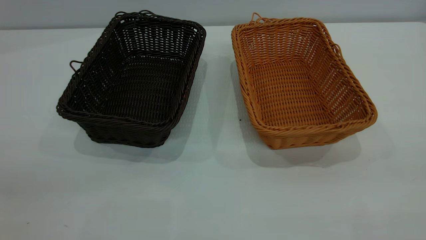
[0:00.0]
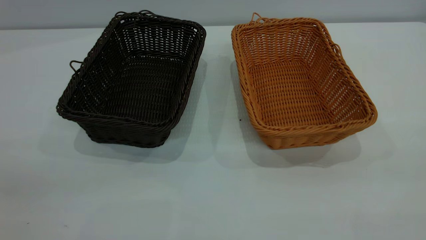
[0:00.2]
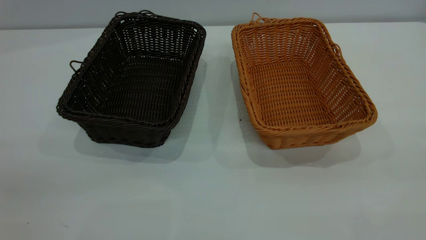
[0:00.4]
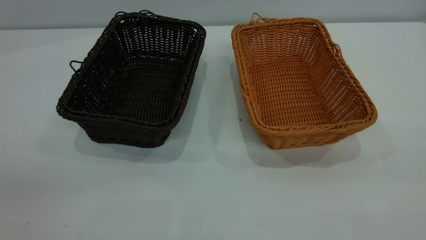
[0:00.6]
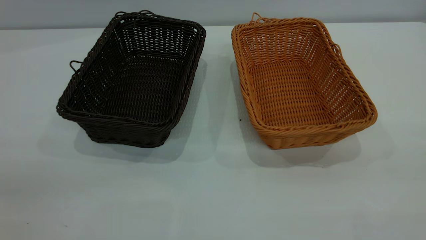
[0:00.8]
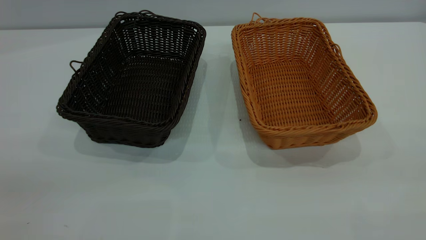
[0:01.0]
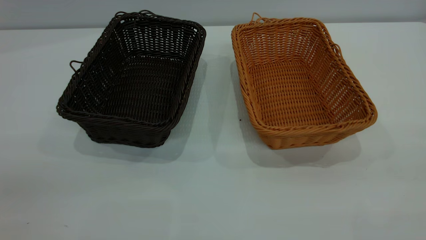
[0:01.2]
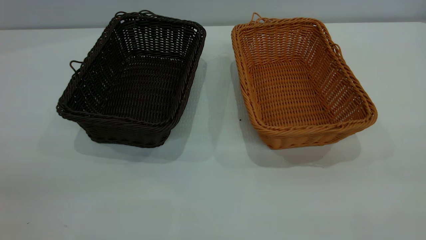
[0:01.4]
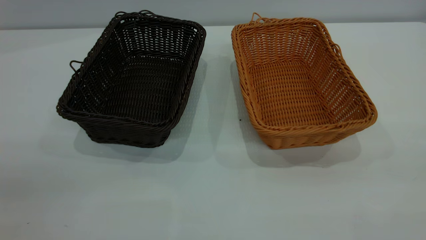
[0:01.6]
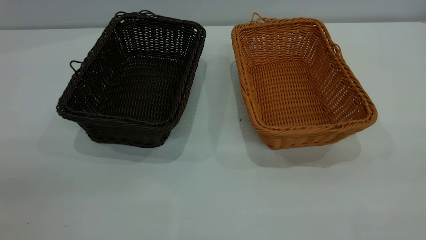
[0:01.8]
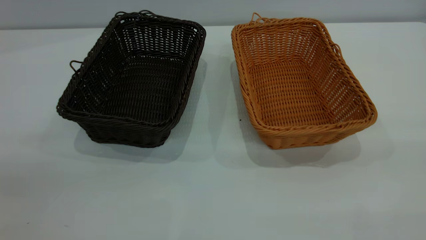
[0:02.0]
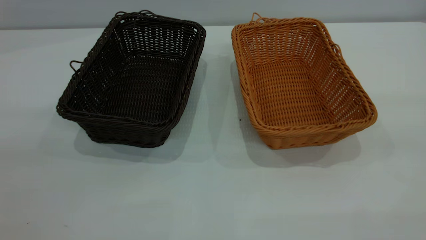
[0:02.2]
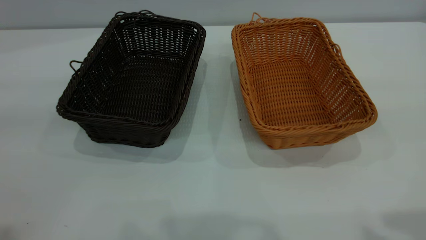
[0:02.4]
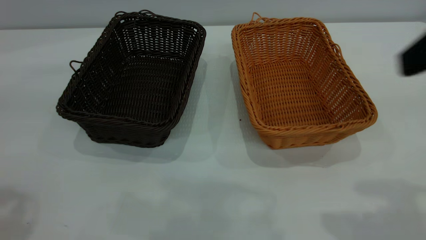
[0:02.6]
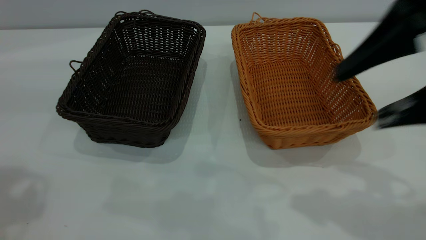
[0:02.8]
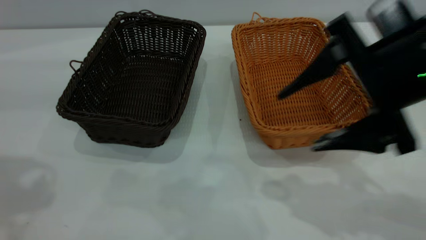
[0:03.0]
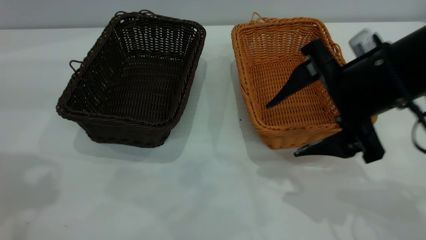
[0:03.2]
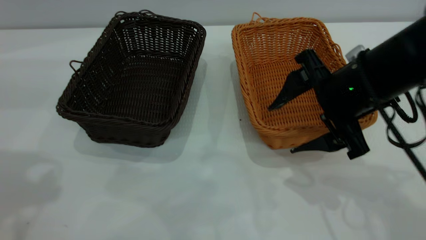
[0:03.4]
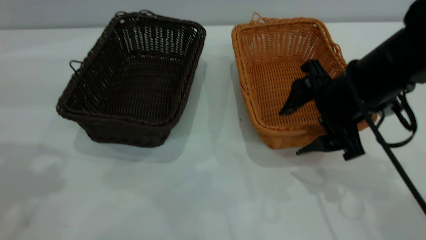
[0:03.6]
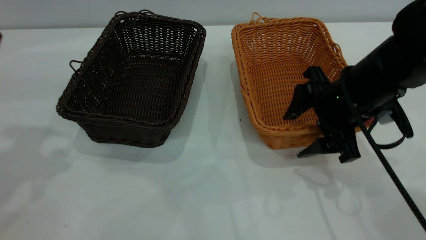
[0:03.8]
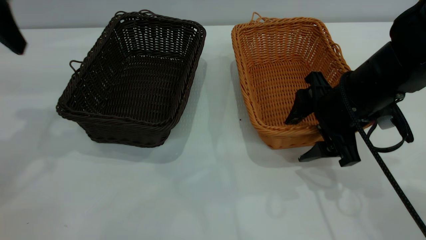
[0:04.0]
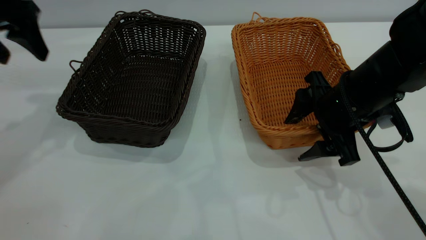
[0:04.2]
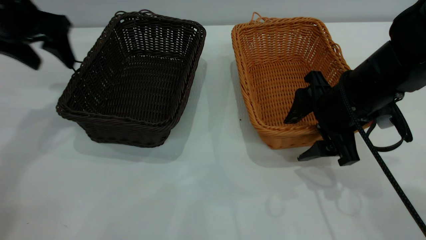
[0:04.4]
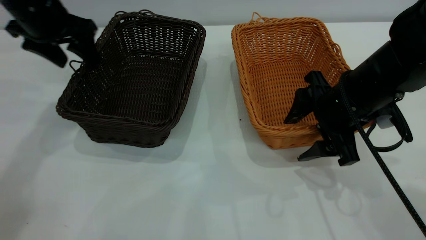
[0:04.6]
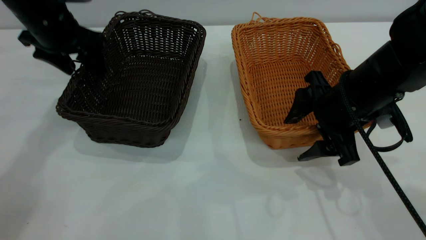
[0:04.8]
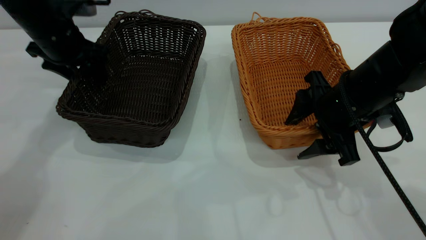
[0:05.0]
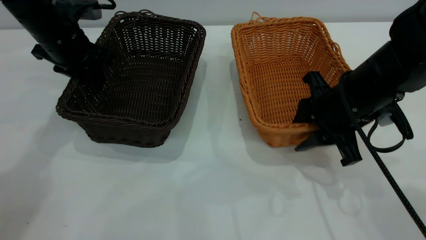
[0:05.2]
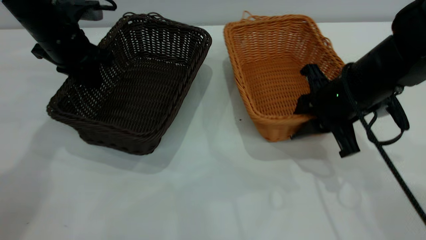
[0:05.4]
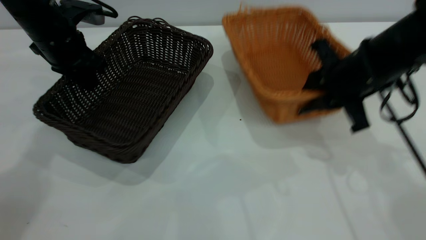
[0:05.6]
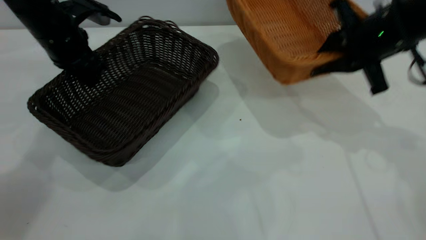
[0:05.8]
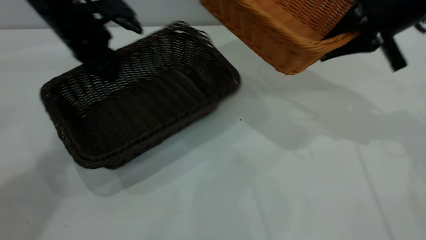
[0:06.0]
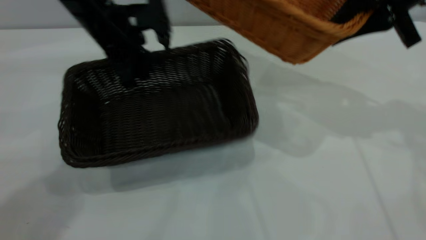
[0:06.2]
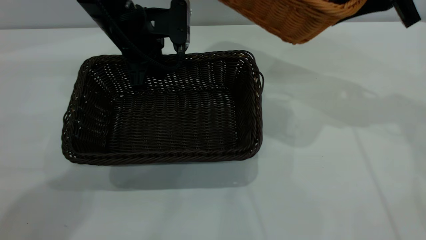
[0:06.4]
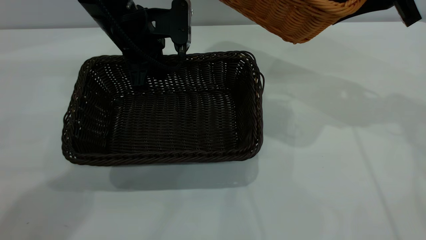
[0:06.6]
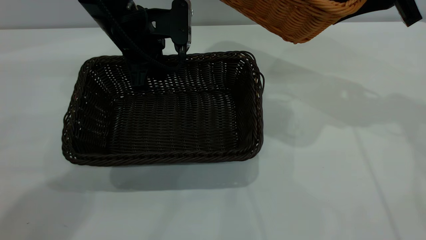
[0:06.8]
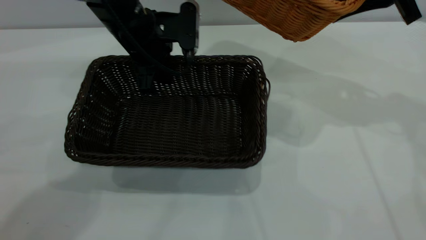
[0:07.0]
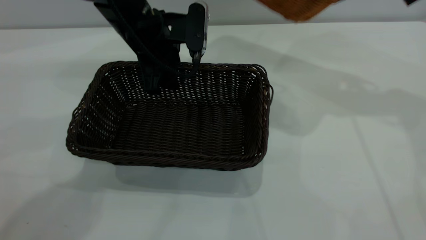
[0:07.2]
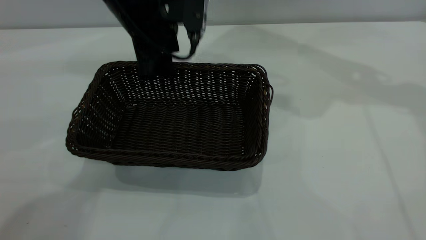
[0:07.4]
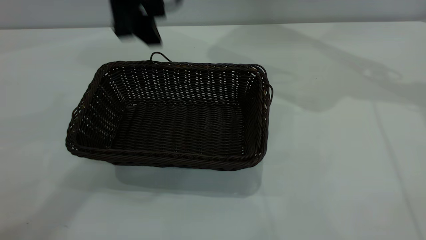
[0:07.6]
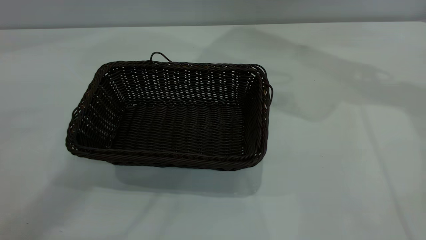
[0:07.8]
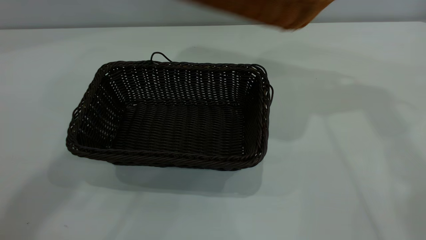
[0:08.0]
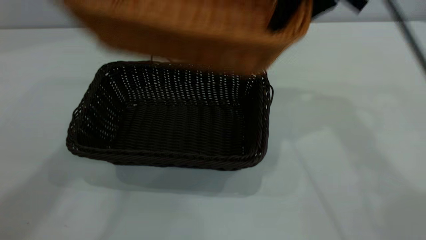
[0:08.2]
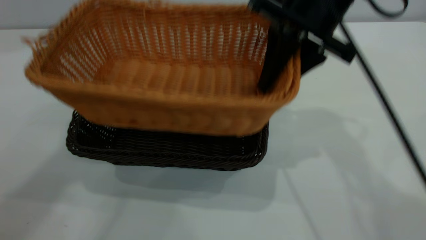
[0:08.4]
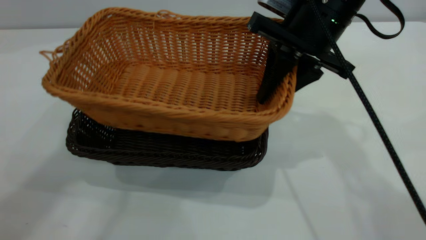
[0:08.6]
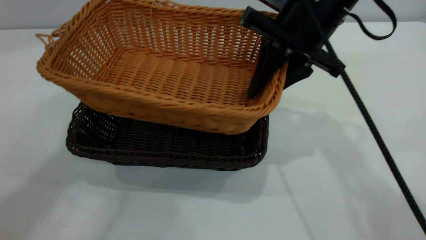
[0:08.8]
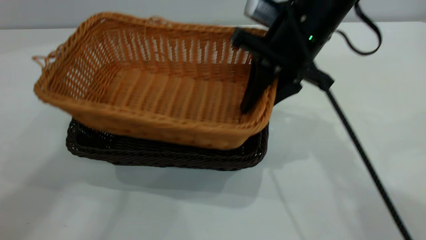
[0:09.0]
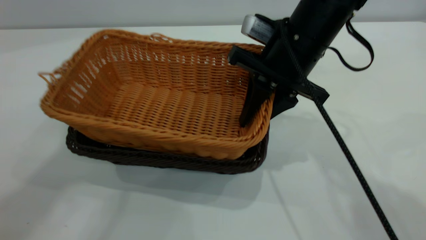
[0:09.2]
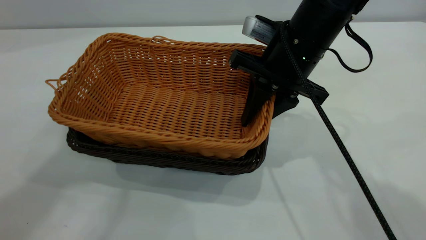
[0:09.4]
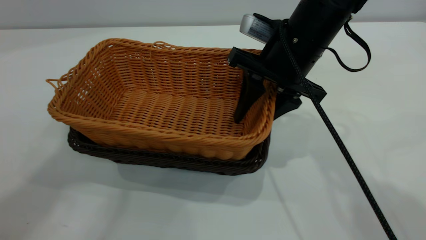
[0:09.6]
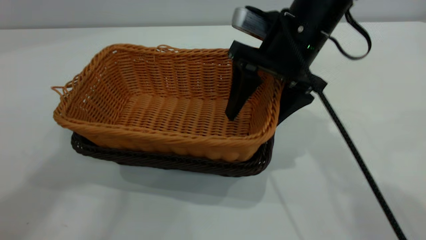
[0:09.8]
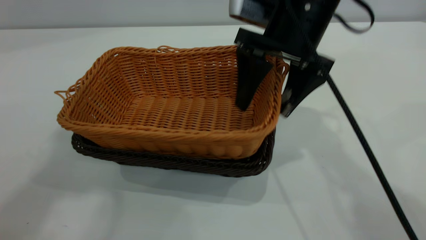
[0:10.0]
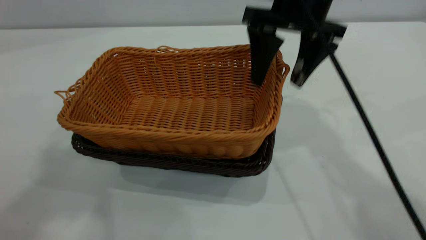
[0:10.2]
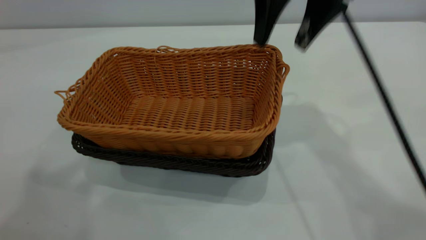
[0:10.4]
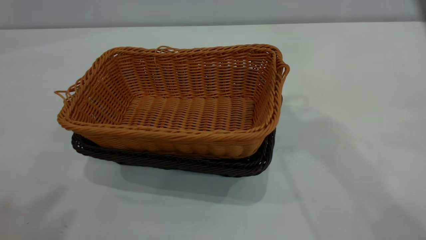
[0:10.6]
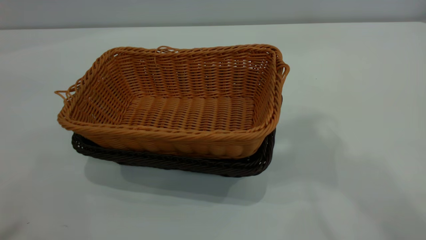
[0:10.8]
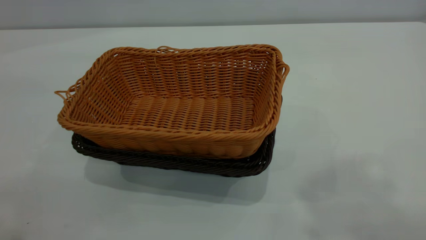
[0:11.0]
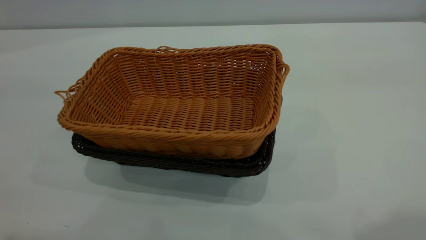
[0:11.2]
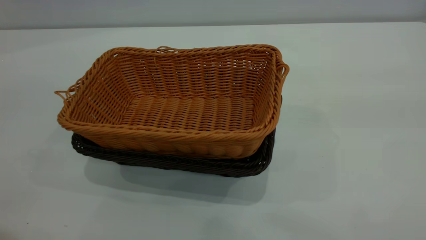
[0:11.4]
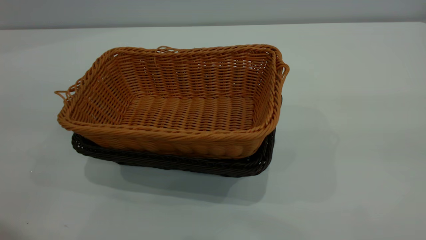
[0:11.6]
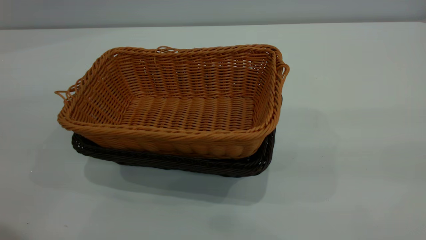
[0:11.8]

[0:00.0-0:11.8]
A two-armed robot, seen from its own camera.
Task of the whole recording: the left gripper grasp the black basket and place it in the center of the table, the right gripper grasp the brown basket and place it inside the black one.
Step, 0:00.0 to 0:05.6: Pick up the light basket with the right gripper.
Step, 0:06.0 to 0:07.4: Move the dark basket to the center of view.
Step, 0:07.6 to 0:10.4: Place the light basket on the dark basket.
0:00.0 to 0:01.4: Neither gripper changes place.
0:01.4 to 0:03.0: The right gripper travels forward, downward and to the left by roughly 30 cm.
0:03.0 to 0:04.4: The right gripper goes roughly 15 cm downward and forward. The left gripper travels forward and downward by roughly 25 cm.
0:04.4 to 0:06.0: The left gripper is displaced to the right and downward by approximately 10 cm, and closes its fingers; the right gripper shifts roughly 15 cm upward, forward and to the right, and closes up.
0:06.0 to 0:07.4: The right gripper shifts roughly 10 cm upward and forward. The left gripper travels to the right and upward by some 10 cm, and opens up.
0:07.4 to 0:08.8: The left gripper moves upward and backward, about 35 cm, while the right gripper shifts some 20 cm to the left, downward and backward.
0:08.8 to 0:10.4: The right gripper goes approximately 10 cm upward, and opens up; the left gripper travels backward by some 10 cm.
0:10.4 to 0:11.8: The left gripper is displaced downward by approximately 20 cm, while the right gripper is displaced backward and to the right by some 35 cm.
